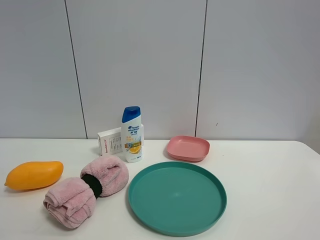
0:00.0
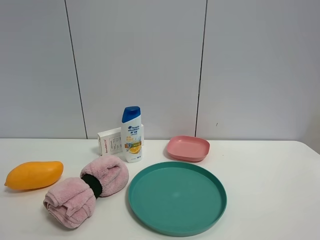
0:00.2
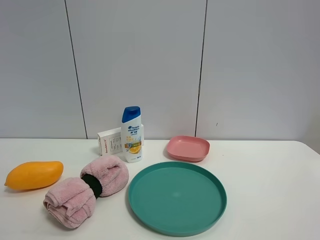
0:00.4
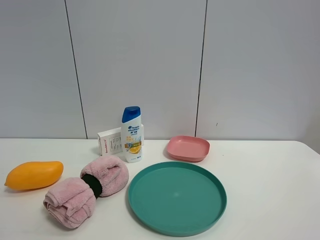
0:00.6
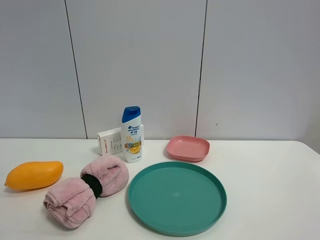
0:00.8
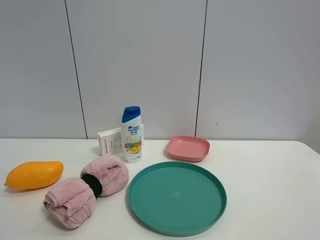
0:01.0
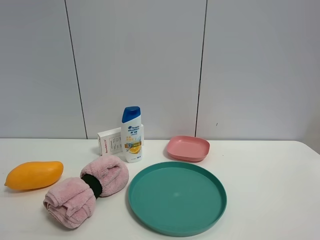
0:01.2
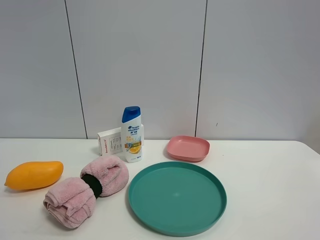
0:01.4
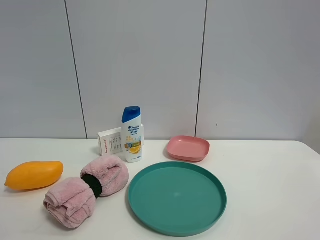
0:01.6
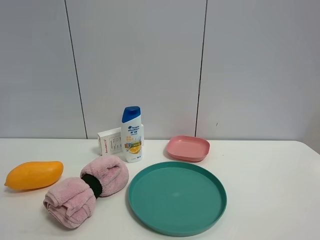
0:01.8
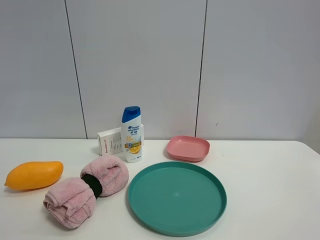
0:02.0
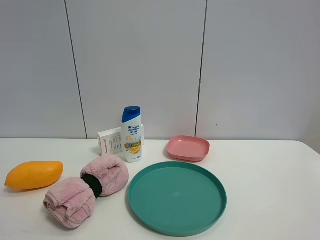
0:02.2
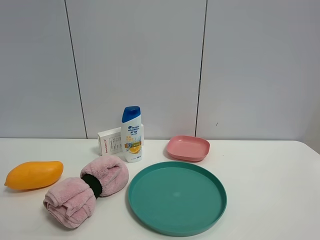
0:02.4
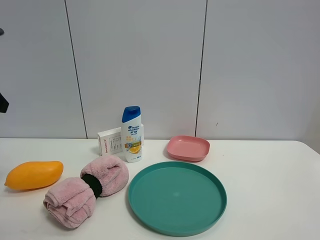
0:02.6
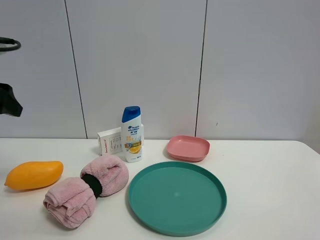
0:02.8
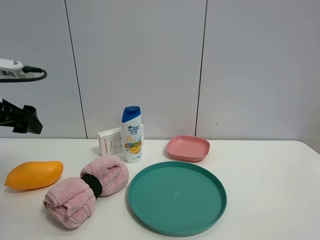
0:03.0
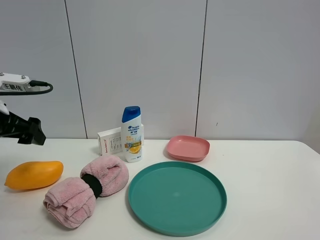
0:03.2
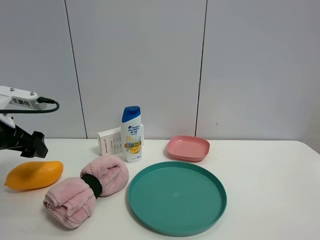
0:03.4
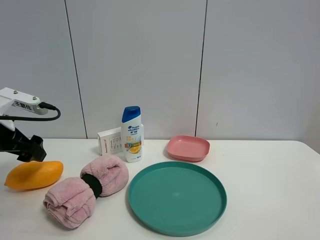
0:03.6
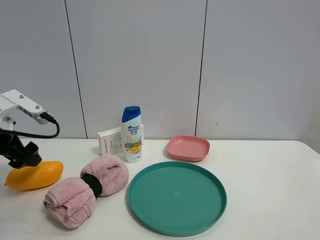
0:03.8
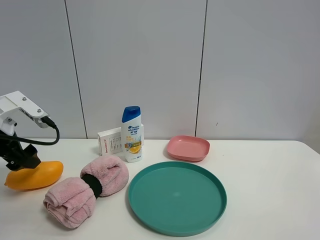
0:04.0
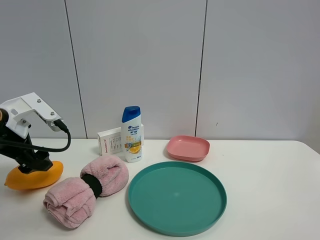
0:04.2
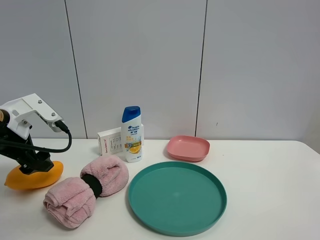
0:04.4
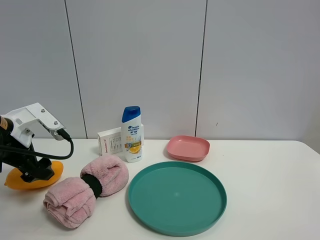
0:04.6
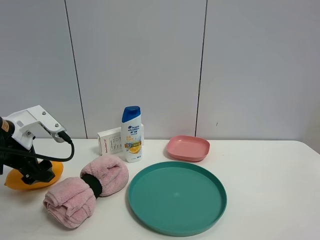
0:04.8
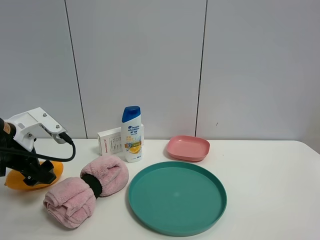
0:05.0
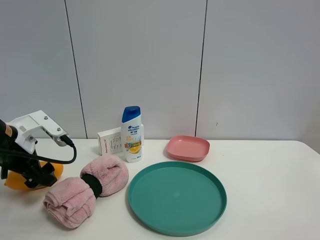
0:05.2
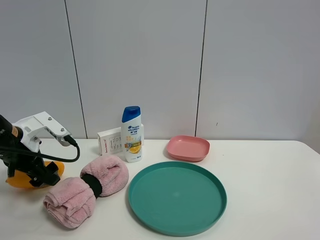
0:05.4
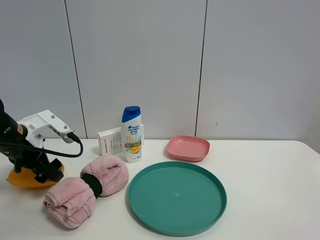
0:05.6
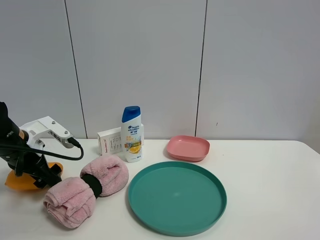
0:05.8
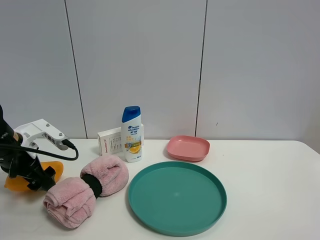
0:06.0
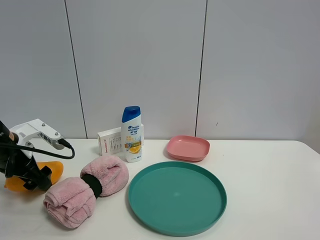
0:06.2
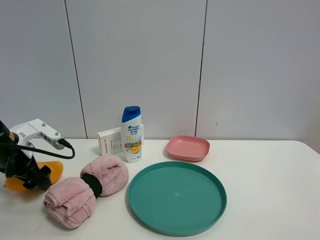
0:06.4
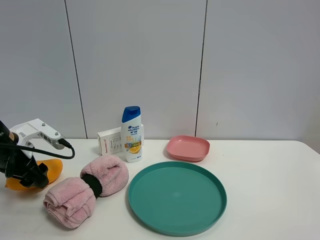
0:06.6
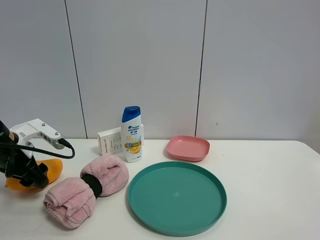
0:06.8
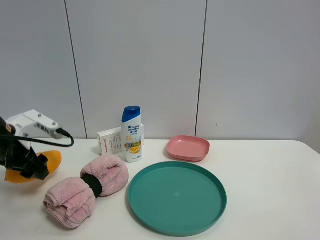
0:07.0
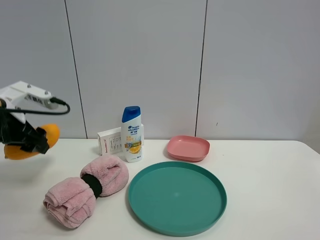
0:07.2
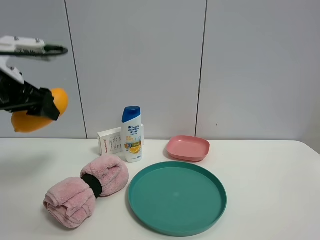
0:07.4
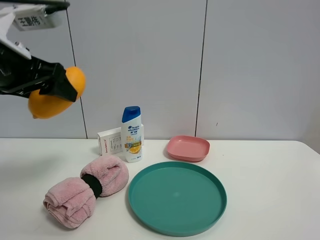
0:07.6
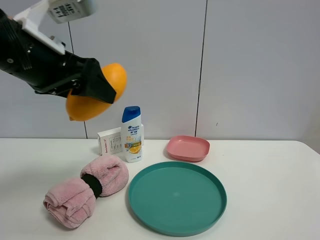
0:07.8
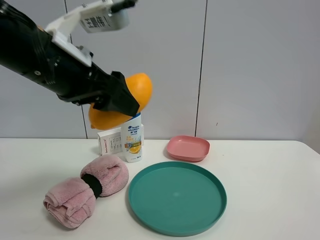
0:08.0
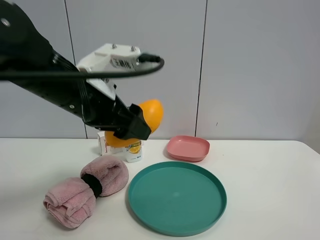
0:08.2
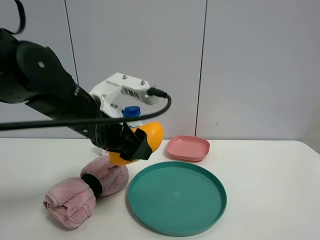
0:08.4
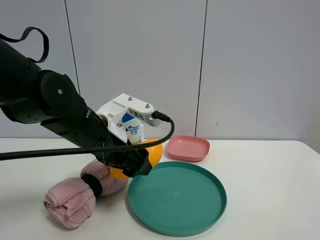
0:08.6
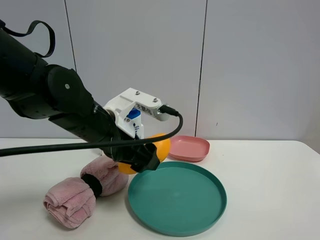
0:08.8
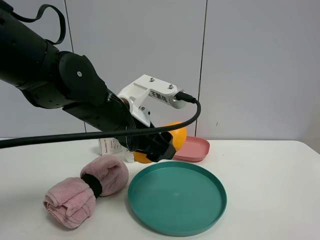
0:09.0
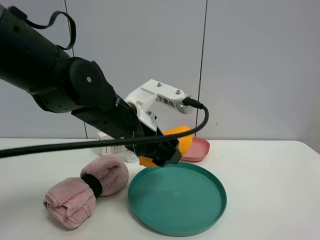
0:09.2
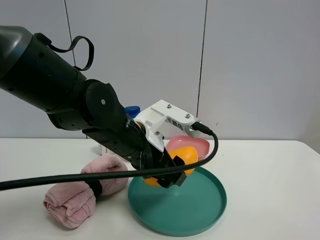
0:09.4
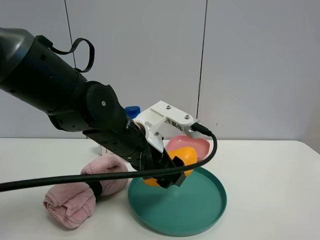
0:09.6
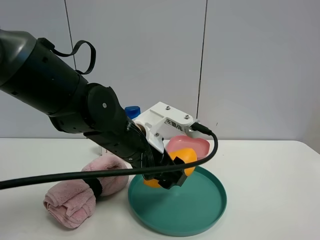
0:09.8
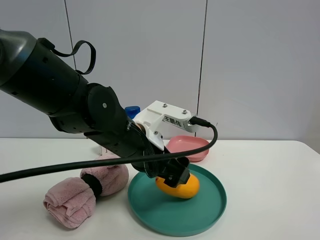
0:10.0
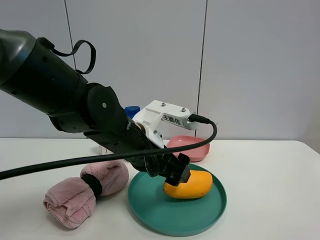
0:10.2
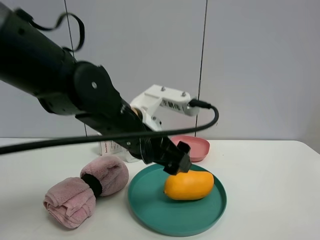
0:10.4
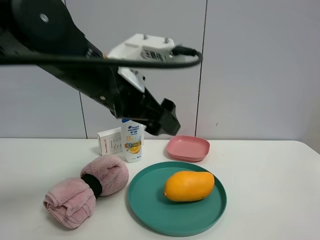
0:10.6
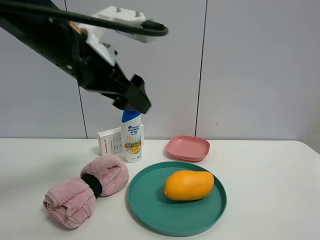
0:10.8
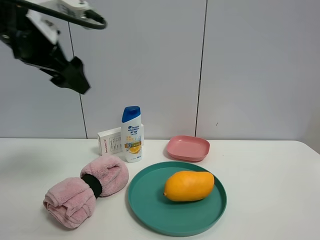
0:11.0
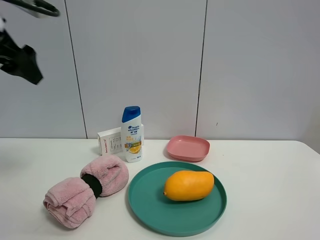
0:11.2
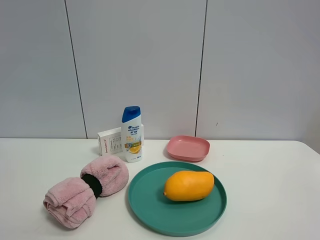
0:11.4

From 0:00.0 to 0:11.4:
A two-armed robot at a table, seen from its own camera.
Task of the whole recording: the gripper move the object.
Step, from 0:00.0 to 0:06.6: Grasp the mango with the left gripper.
Step, from 0:06.8 to 0:10.0: Place the mango into the green plate with the left gripper.
From 0:01.4 to 0:02.8: The left gripper travels forward by approximately 25 cm.
From 0:02.8 to 0:04.2: The left gripper heads downward, covering some 10 cm.
From 0:04.2 to 0:05.6: The left gripper changes place by roughly 5 cm.
From 0:05.6 to 0:07.2: The left gripper moves upward, approximately 10 cm, and closes up.
From 0:07.2 to 0:08.6: The left gripper moves to the right, roughly 20 cm.
From 0:08.6 to 0:10.0: The left gripper heads to the right, covering approximately 5 cm, and opens its fingers.
From 0:10.0 to 0:11.4: The left gripper travels to the left and upward by some 40 cm.

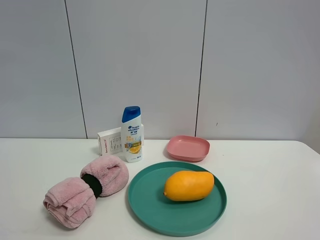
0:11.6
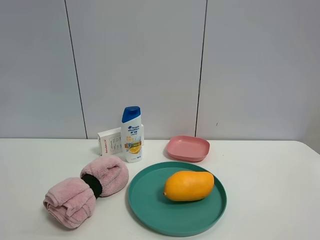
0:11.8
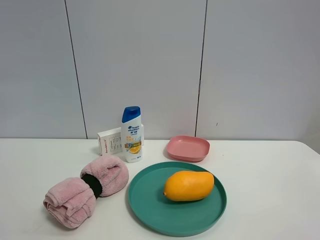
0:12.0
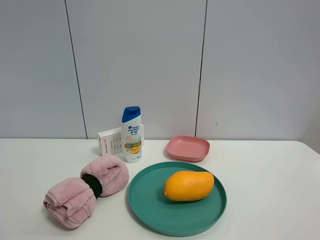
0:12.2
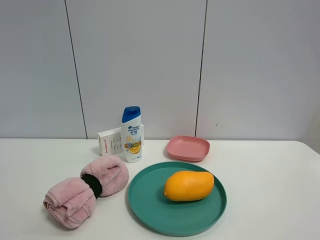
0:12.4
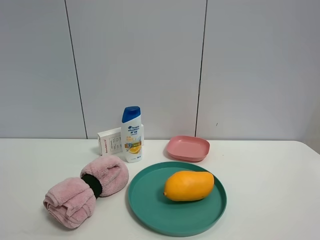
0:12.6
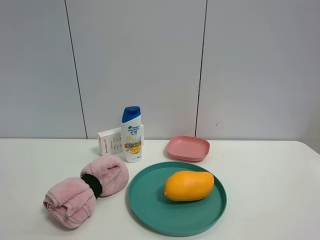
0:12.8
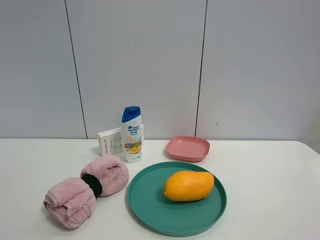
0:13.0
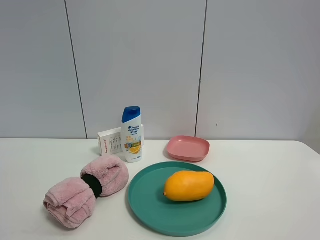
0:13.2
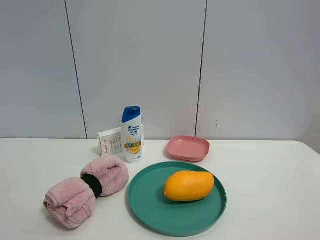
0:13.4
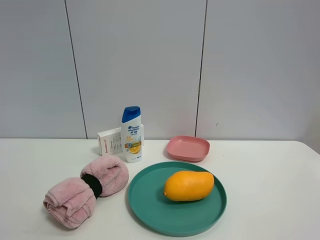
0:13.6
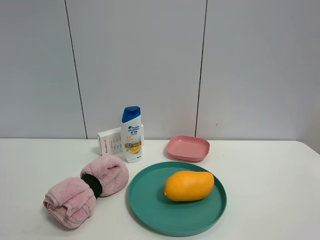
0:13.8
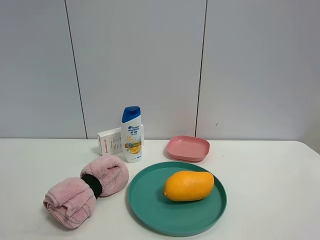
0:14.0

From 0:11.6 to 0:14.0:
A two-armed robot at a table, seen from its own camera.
Task of the whole recording: the gripper move the object.
From 0:12.8 to 0:14.0: The two grippers keep their place.

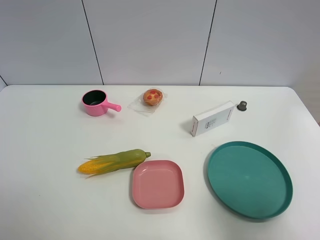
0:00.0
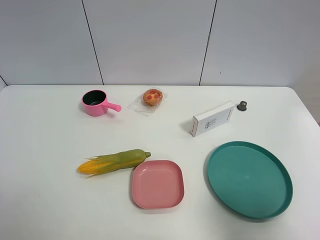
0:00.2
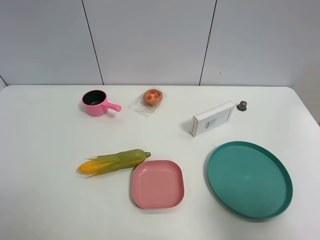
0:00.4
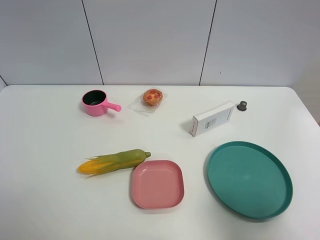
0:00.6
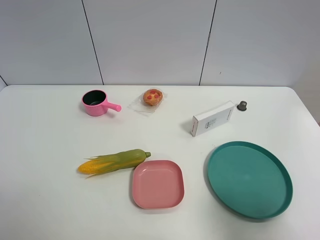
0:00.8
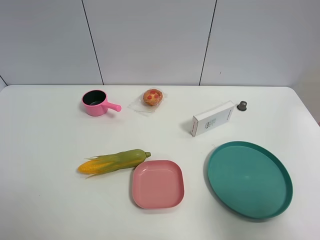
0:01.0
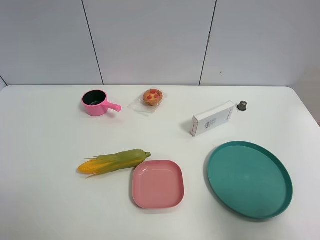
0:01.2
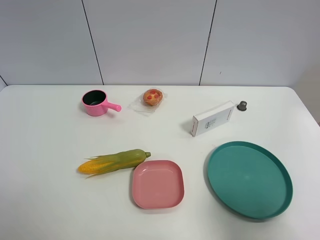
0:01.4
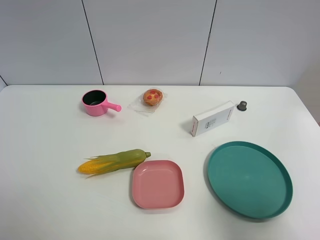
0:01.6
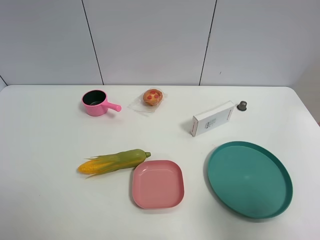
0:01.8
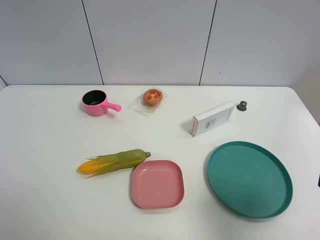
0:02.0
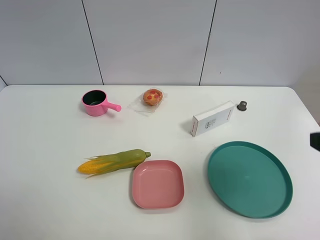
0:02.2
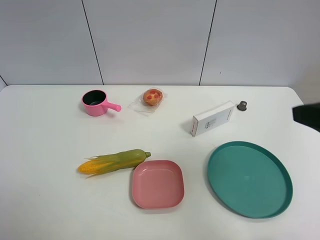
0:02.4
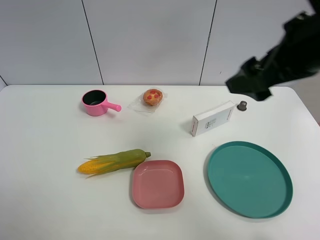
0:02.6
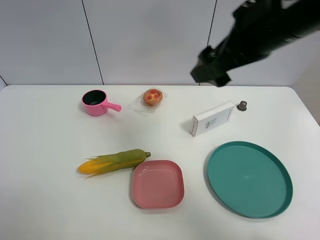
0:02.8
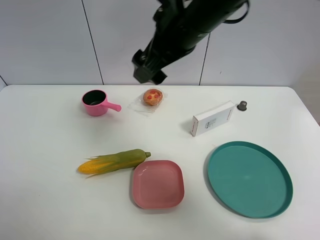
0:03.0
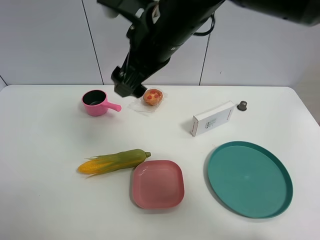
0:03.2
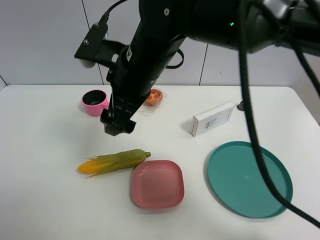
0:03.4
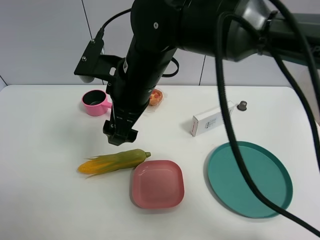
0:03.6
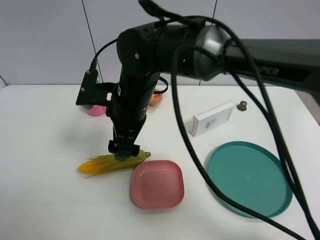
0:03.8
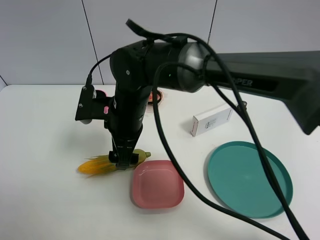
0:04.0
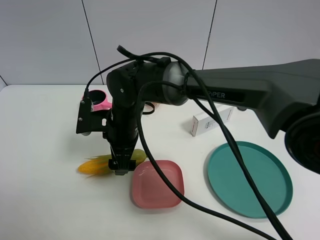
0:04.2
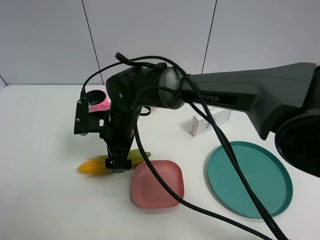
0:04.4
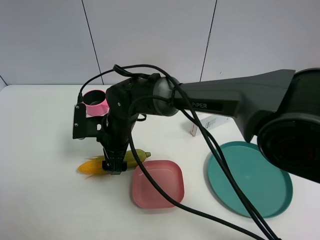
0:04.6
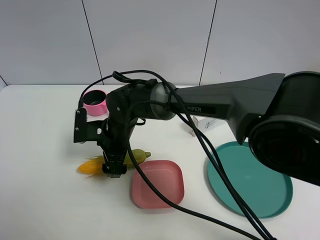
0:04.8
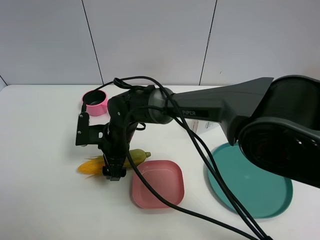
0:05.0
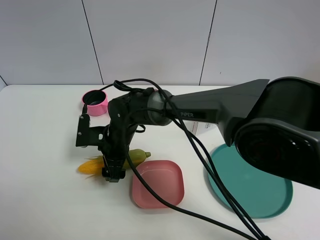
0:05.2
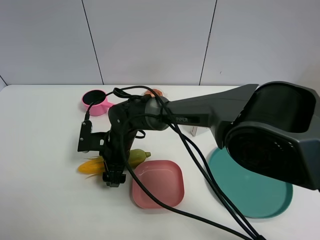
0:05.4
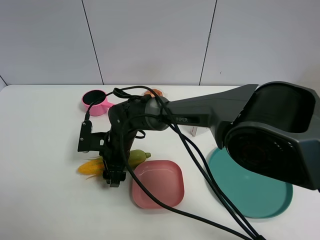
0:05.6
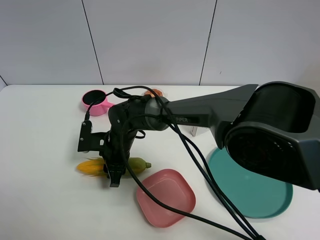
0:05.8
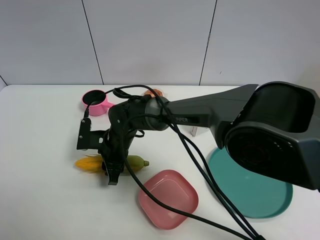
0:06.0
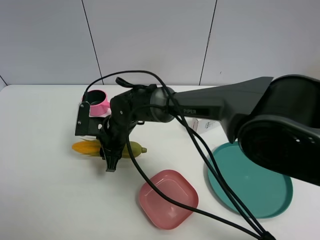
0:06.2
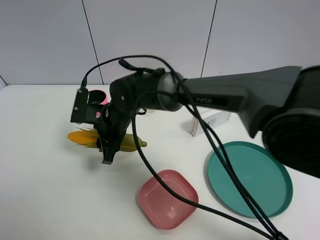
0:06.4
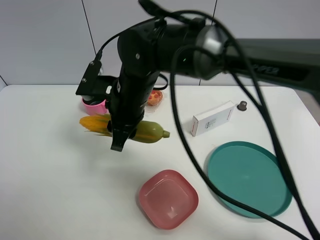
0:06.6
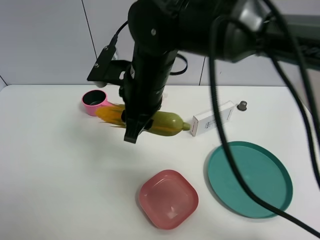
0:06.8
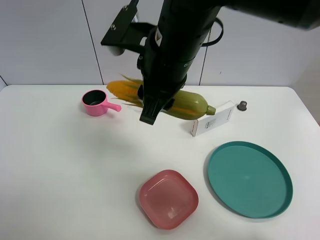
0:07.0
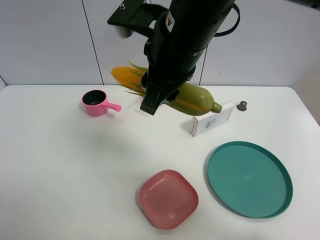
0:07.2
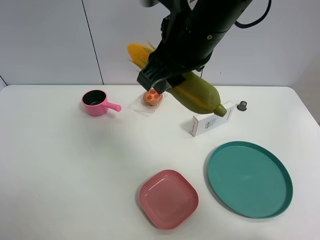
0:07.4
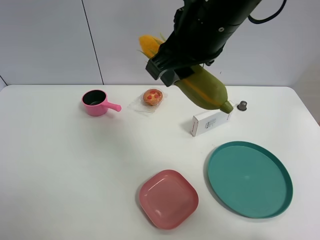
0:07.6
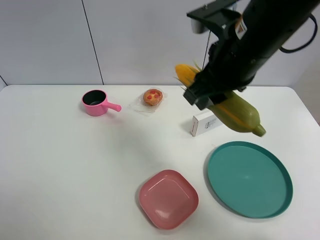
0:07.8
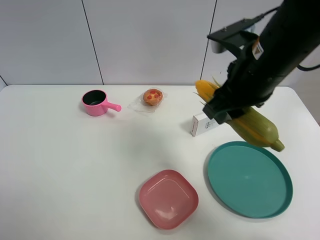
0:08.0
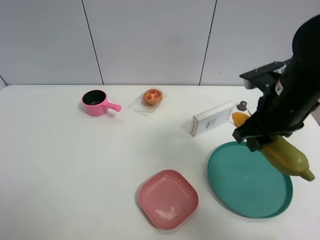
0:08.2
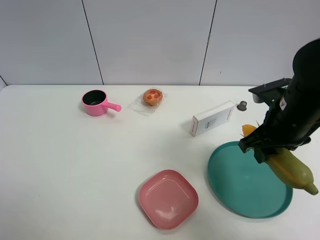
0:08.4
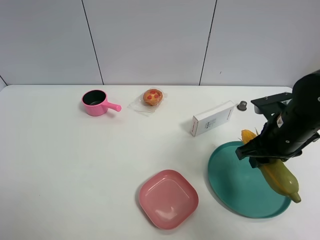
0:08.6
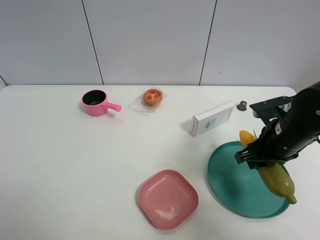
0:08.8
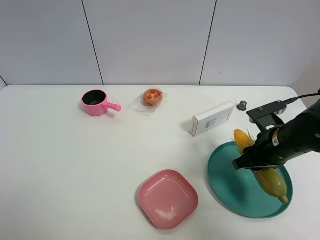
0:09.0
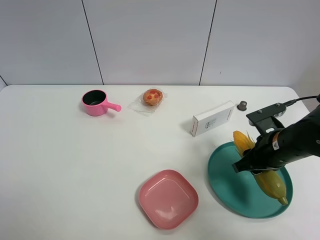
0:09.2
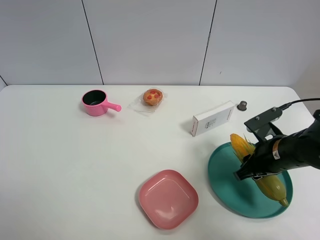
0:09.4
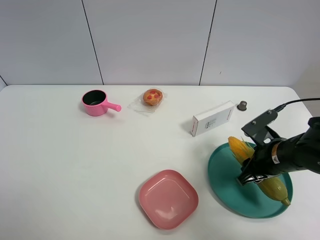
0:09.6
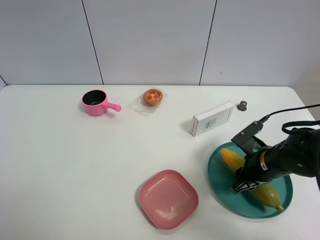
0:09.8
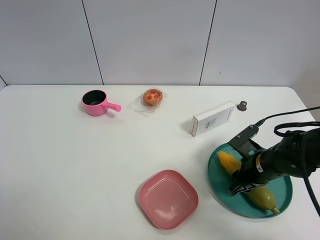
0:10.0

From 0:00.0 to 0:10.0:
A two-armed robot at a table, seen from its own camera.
Task of the whole recording: the gripper move the object.
Step, from 0:00.0 to 0:05.8: Grasp the corn with the right gripper.
From 0:01.4 to 0:02.8: The right gripper shifts roughly 30 cm forward, to the left and upward.
From 0:02.8 to 0:04.2: The right gripper shifts approximately 30 cm to the left and downward.
From 0:04.2 to 0:05.8: The right gripper shifts some 10 cm downward, and closes.
From 0:05.8 to 0:07.2: The right gripper is displaced upward and to the right by some 30 cm.
From 0:07.2 to 0:08.6: The right gripper goes some 25 cm to the right and downward.
From 0:08.6 to 0:10.0: The right gripper shifts roughly 10 cm downward.
